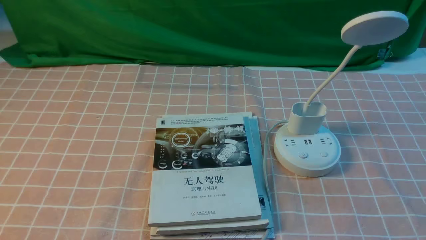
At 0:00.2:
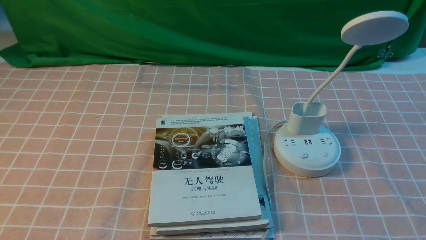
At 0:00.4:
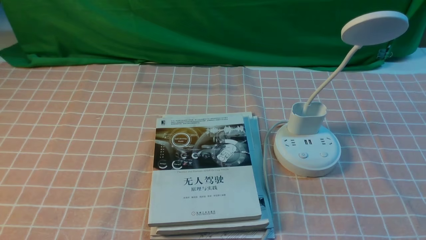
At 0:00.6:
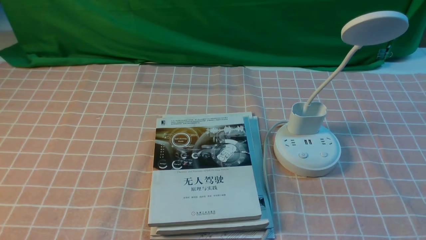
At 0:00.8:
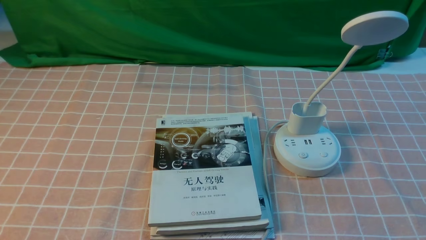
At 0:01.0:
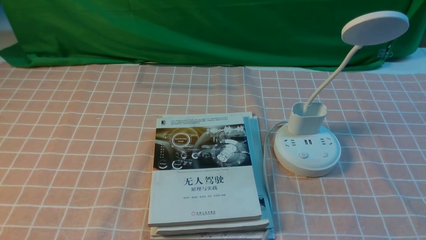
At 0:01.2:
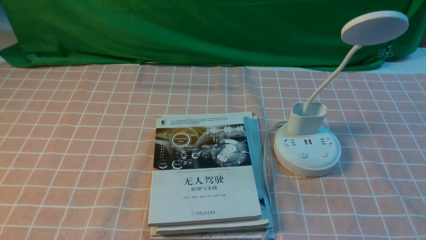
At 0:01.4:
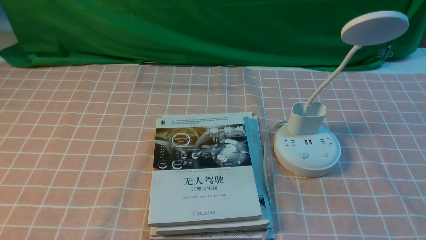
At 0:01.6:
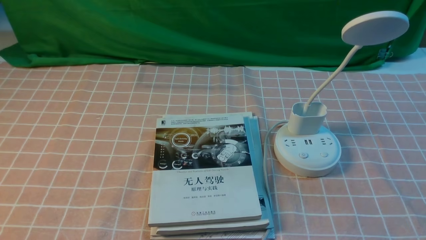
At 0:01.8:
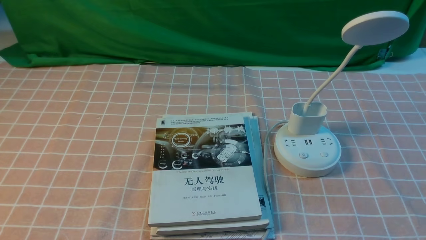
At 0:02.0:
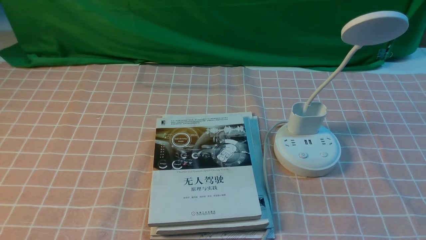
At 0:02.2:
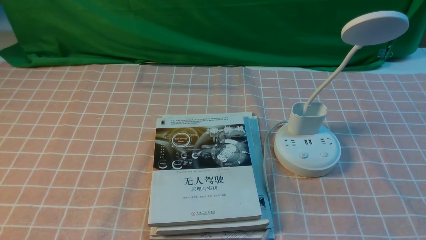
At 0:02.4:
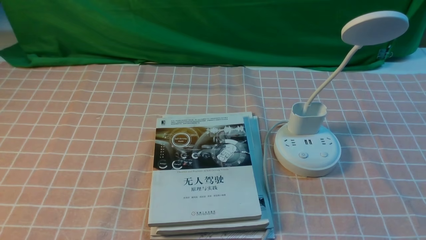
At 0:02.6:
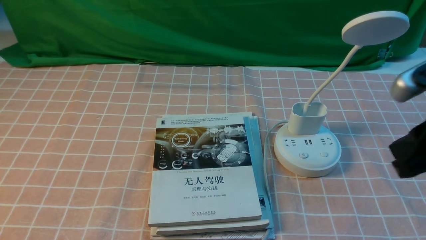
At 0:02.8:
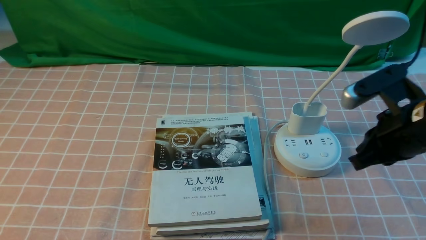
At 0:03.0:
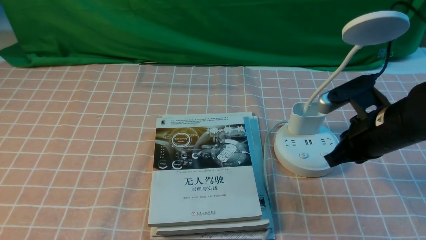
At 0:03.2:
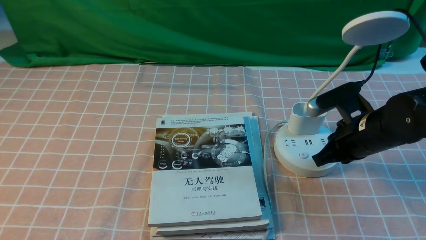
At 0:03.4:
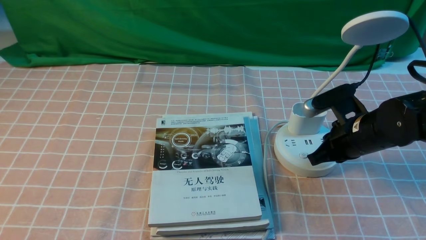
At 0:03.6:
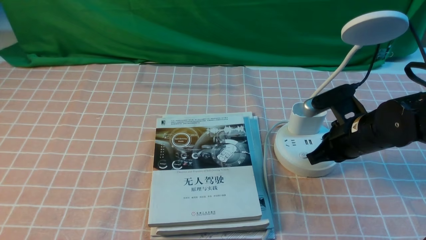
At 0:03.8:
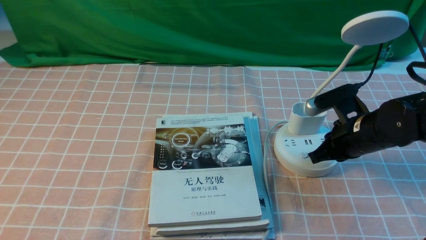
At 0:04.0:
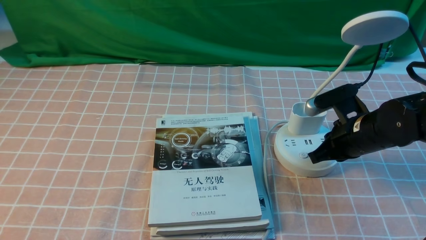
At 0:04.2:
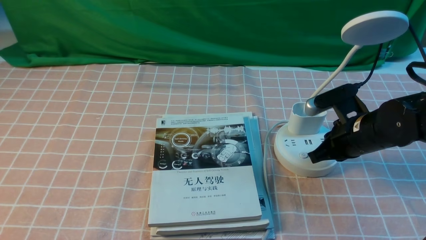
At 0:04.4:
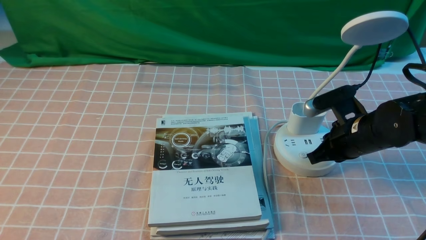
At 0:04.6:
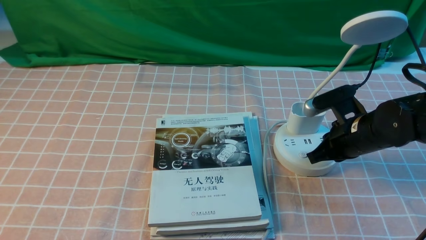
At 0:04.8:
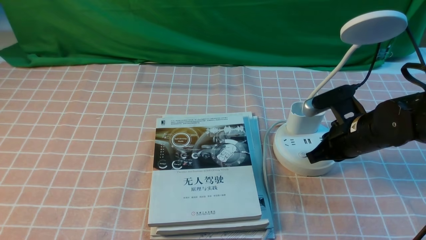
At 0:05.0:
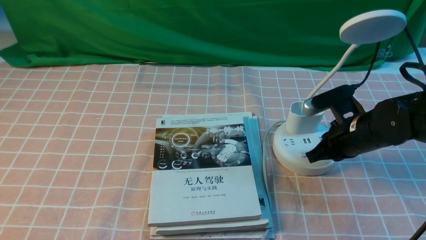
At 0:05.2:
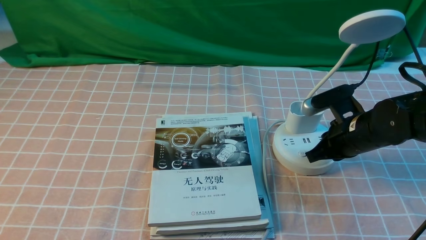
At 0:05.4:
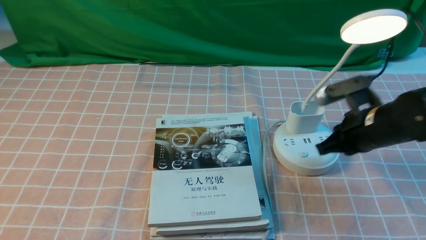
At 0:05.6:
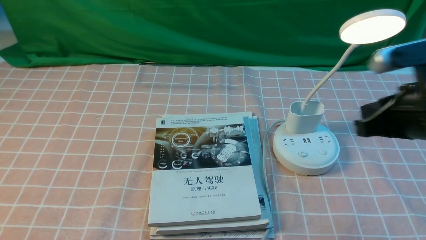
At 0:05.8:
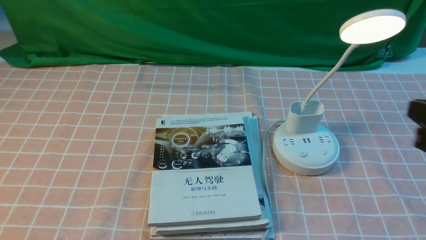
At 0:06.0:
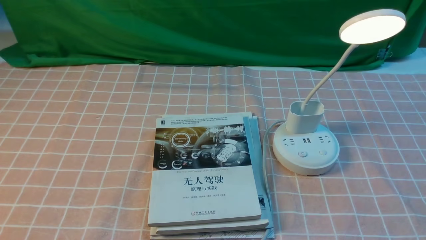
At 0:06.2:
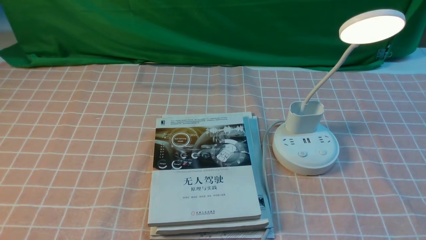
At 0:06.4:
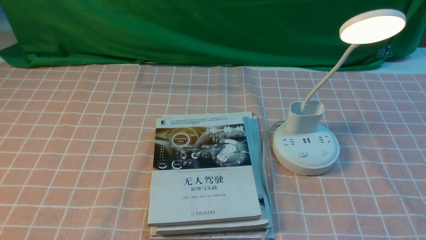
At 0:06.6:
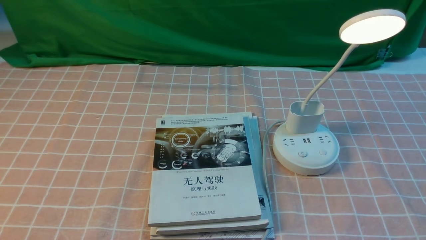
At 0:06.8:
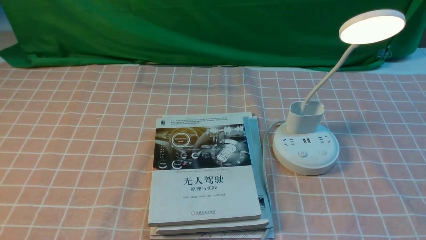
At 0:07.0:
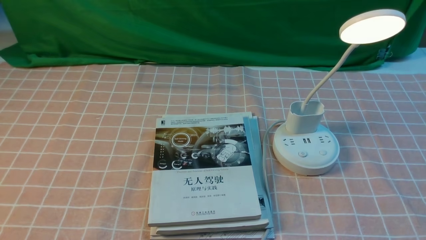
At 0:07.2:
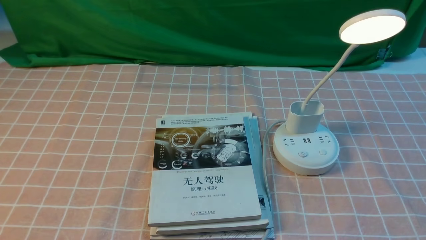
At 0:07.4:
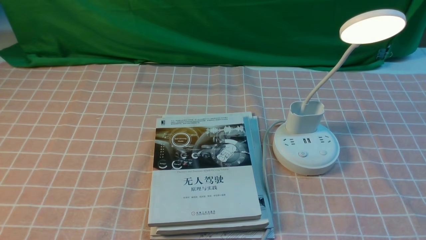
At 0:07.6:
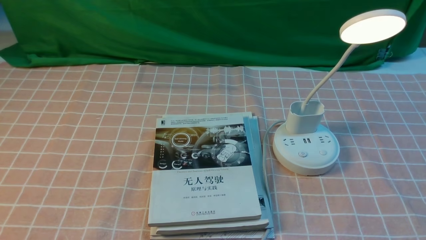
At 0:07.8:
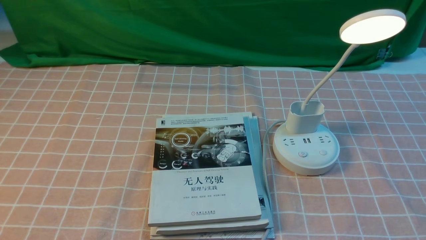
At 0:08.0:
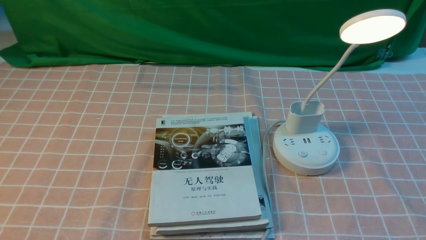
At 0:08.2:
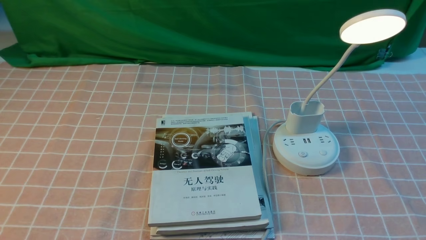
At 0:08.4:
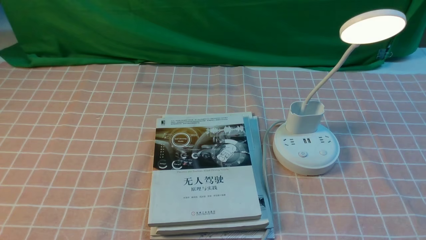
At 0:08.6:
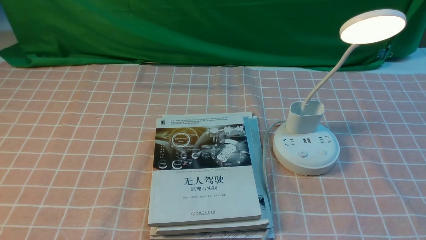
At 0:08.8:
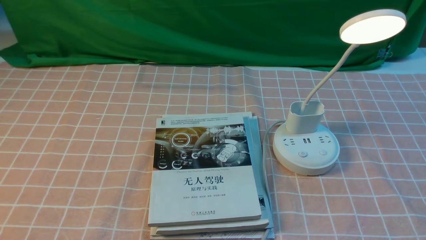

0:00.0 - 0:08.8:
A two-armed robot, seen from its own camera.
Step, 0:00.0 - 0:05.4: use the right arm to press the button switch on the lamp holder.
0:01.4 - 0:03.0: The right gripper is displaced forward and to the left by approximately 25 cm, and closes up.
0:03.0 - 0:04.4: The right gripper heads downward and forward, covering approximately 10 cm.
0:04.4 - 0:05.8: The right gripper moves upward and backward, roughly 20 cm.
0:05.8 - 0:07.4: The right gripper is displaced backward, downward and to the right by approximately 20 cm, and opens.
0:07.4 - 0:08.8: Neither gripper changes place.

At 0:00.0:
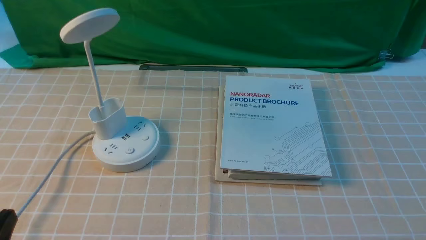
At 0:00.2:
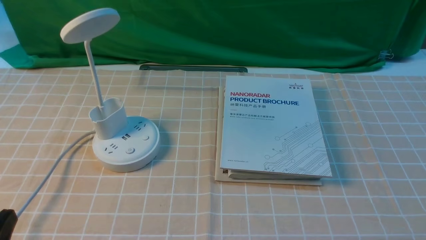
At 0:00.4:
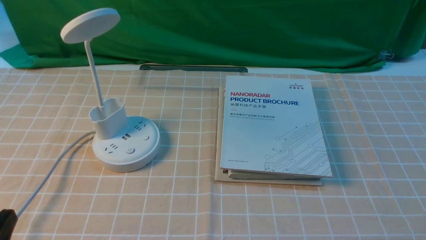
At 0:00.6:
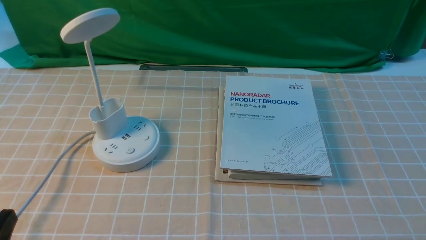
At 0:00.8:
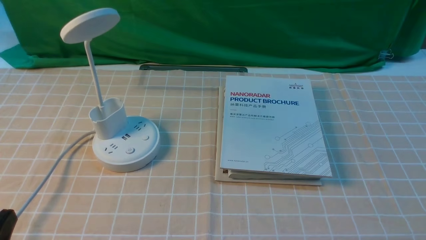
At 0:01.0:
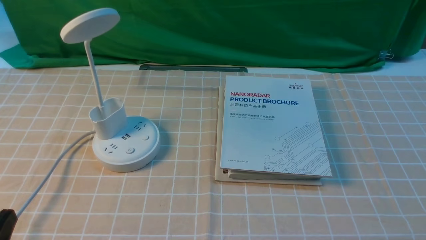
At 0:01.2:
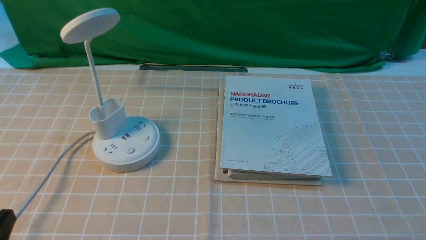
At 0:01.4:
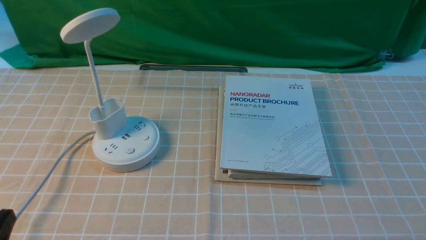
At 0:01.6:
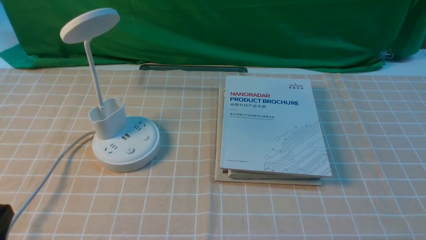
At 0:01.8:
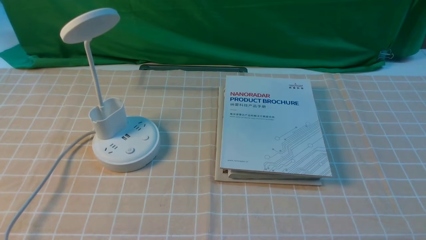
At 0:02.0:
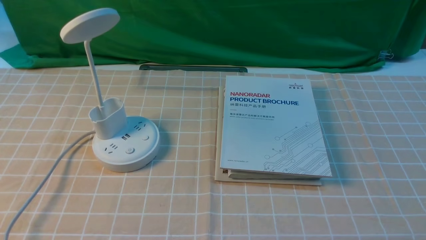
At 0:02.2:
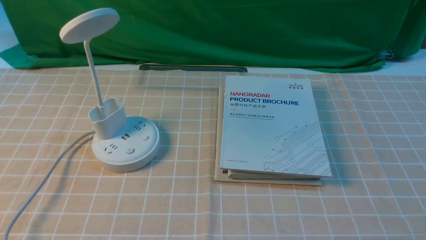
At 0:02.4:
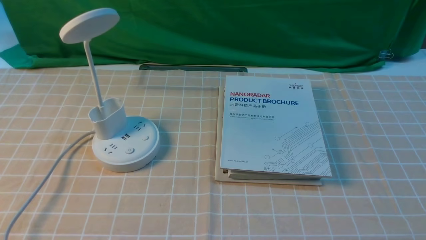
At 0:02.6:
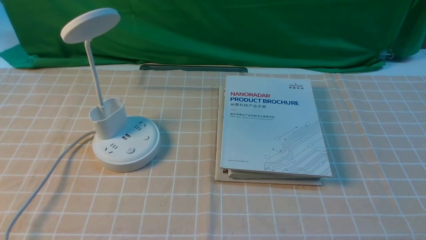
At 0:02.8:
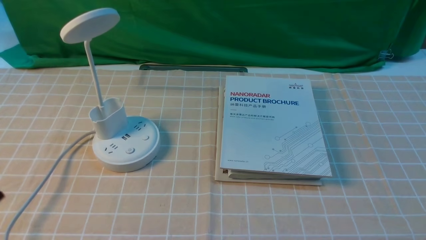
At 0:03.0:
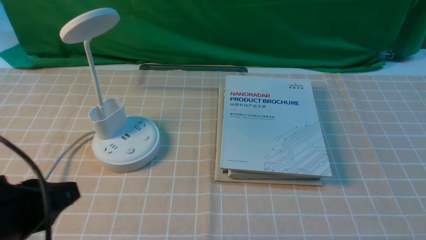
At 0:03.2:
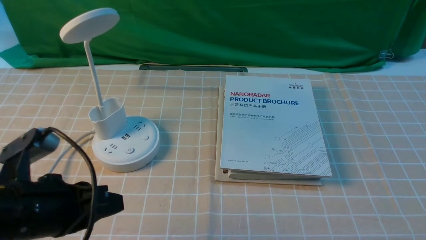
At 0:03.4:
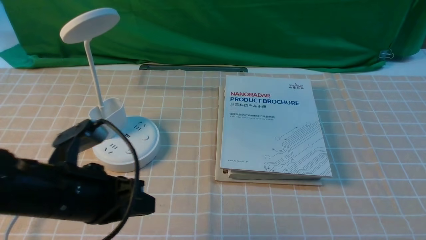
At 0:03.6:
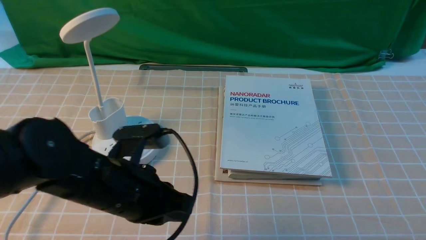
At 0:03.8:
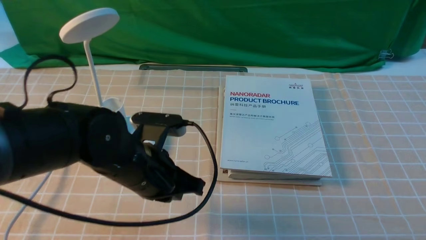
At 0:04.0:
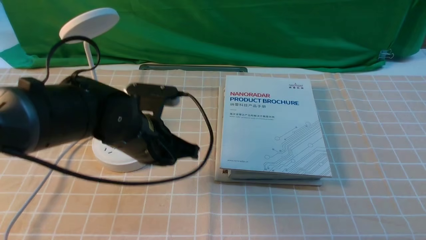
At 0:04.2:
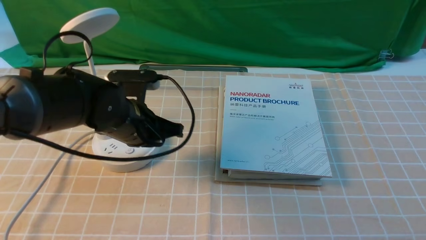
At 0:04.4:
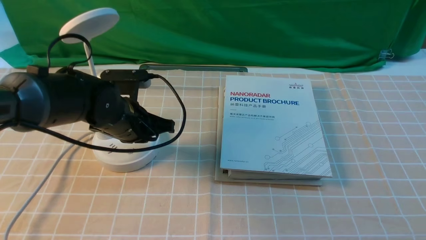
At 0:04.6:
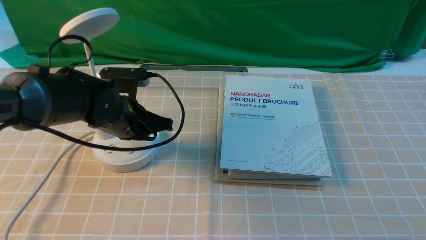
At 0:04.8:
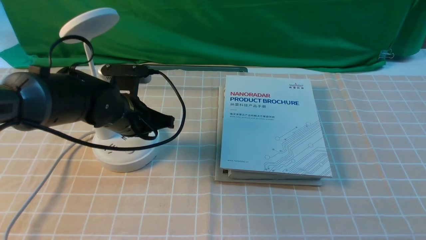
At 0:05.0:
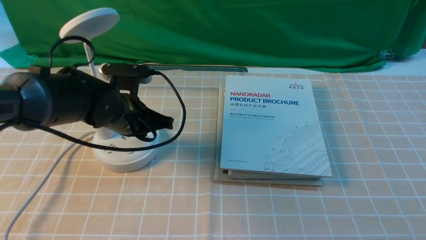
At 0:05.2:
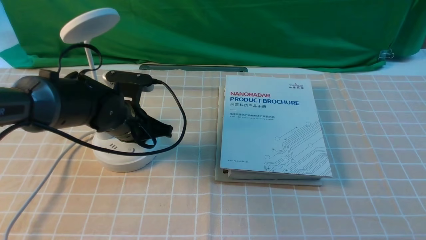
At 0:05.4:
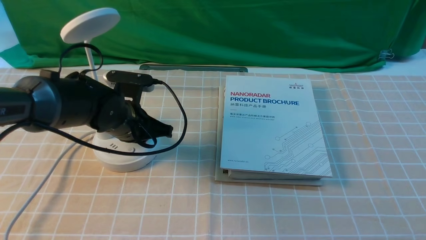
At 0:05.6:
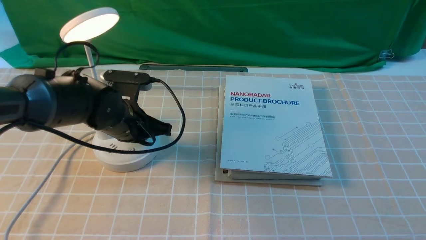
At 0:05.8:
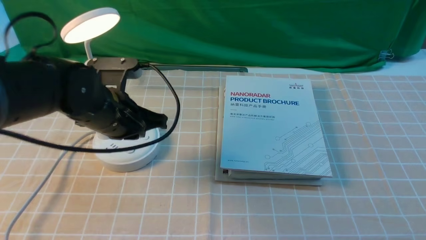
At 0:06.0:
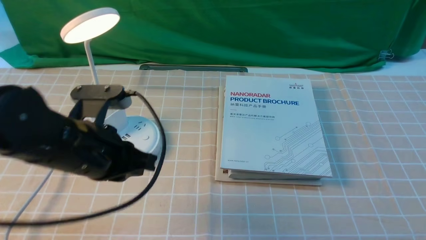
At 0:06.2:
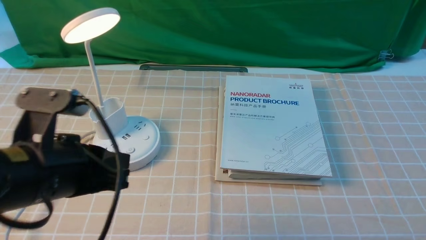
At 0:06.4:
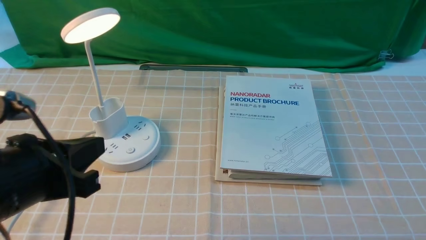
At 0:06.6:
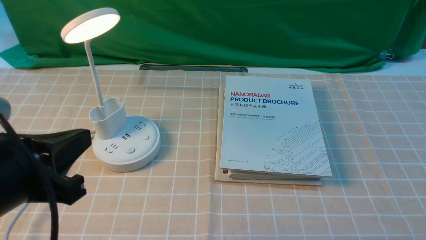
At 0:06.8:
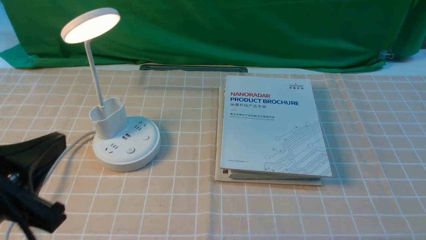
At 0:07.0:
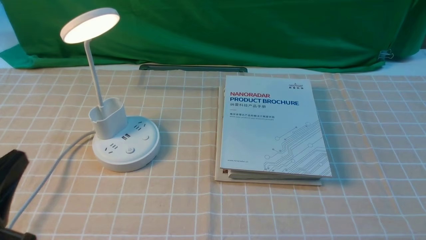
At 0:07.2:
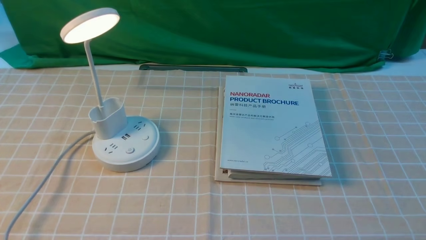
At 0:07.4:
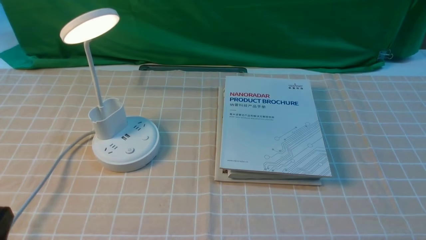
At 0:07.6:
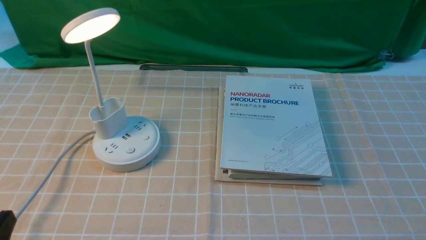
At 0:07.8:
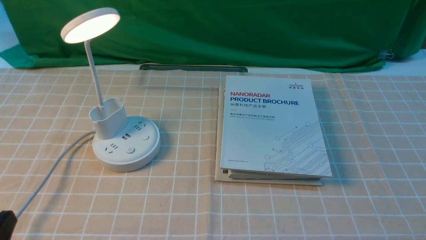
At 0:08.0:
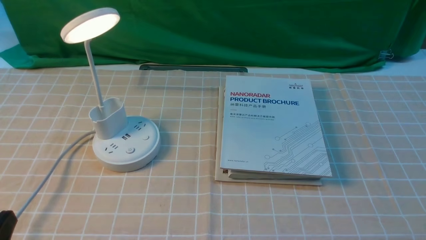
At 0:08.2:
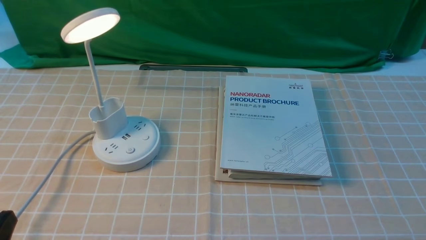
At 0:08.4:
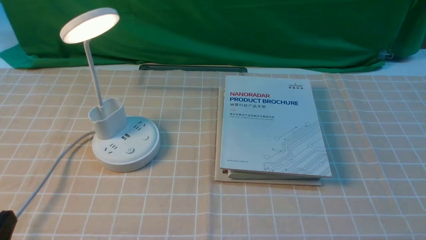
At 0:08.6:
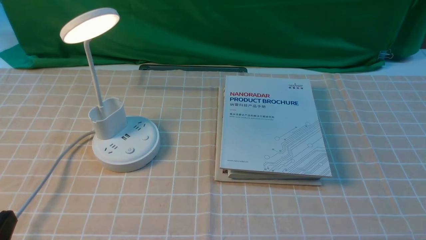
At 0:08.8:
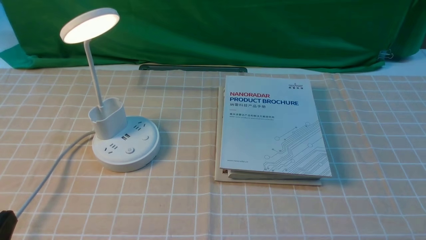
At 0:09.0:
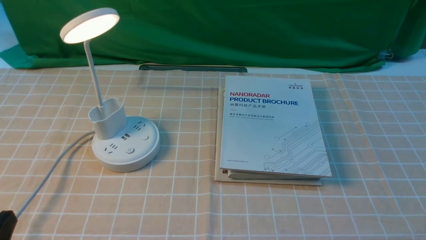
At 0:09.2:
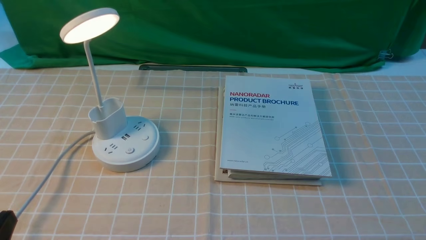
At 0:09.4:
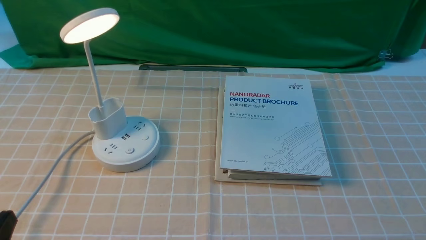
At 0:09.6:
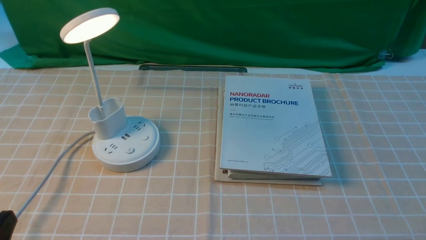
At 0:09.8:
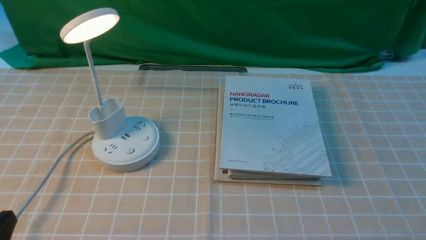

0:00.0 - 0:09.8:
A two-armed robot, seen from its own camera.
Step, 0:00.0 - 0:06.0: use the left arm to press the button switch on the lamp holder.
0:00.0 - 0:01.4: Both grippers stay about where they are.
0:02.8 - 0:04.2: The left gripper moves forward, to the right and downward, roughly 30 cm, and closes its fingers.
0:04.2 - 0:05.6: The left gripper opens.
0:05.6 - 0:07.0: The left gripper travels backward by some 25 cm.
0:07.0 - 0:08.4: The left gripper heads downward, covering roughly 5 cm.
0:08.4 - 0:09.8: The two grippers keep their place.
